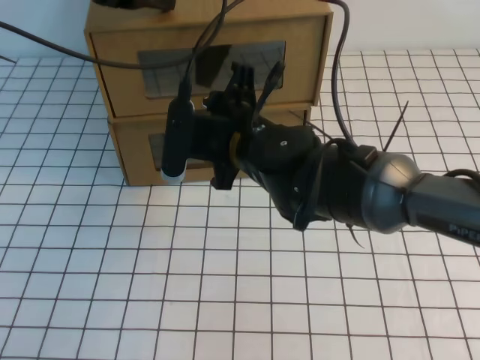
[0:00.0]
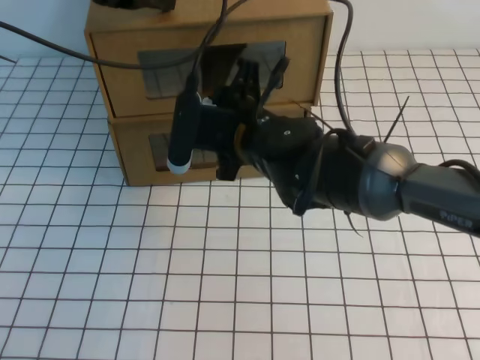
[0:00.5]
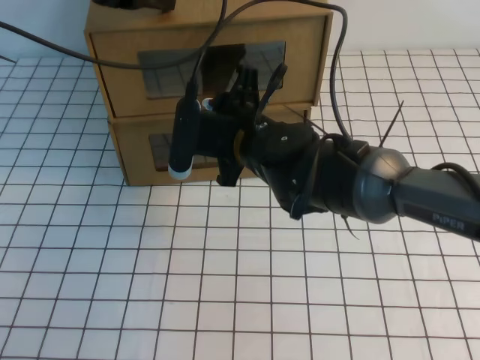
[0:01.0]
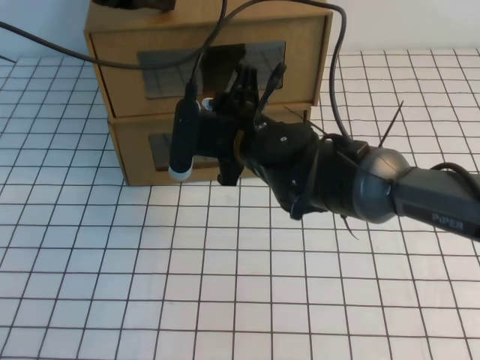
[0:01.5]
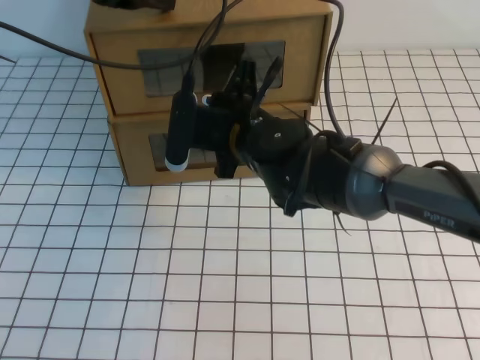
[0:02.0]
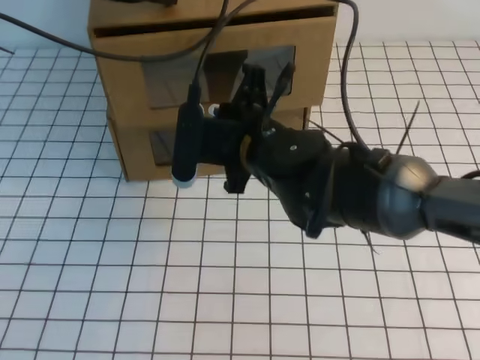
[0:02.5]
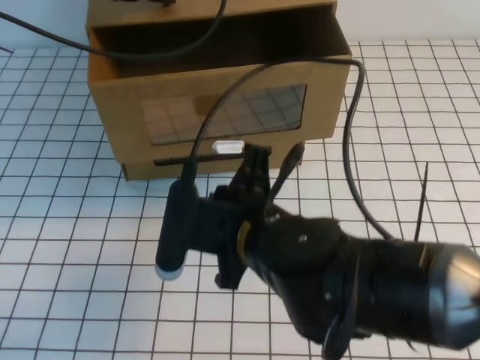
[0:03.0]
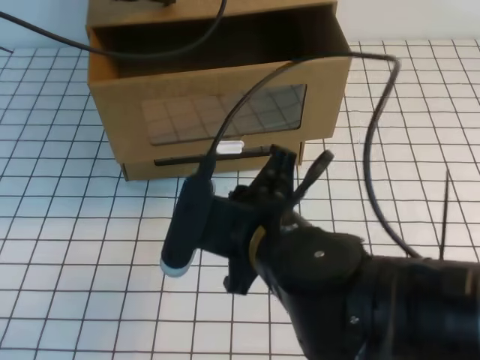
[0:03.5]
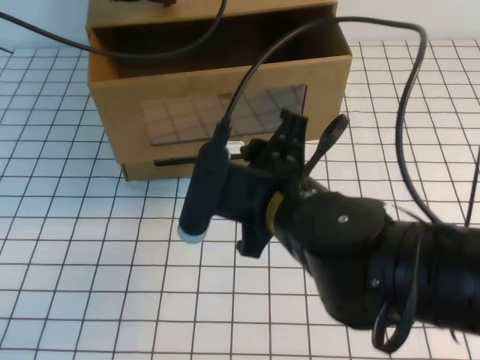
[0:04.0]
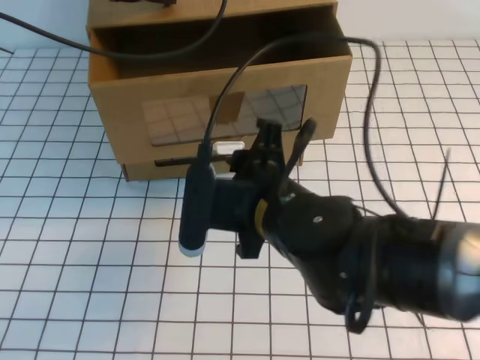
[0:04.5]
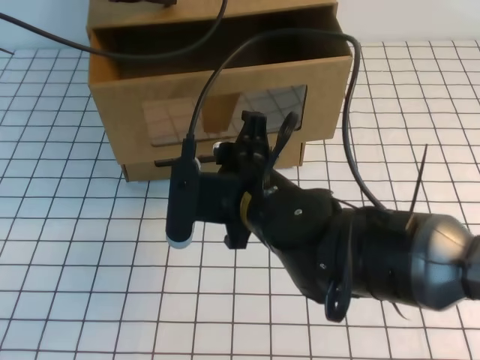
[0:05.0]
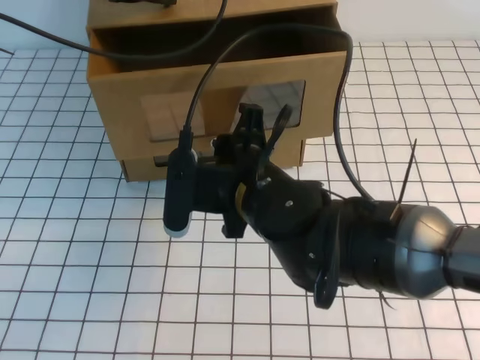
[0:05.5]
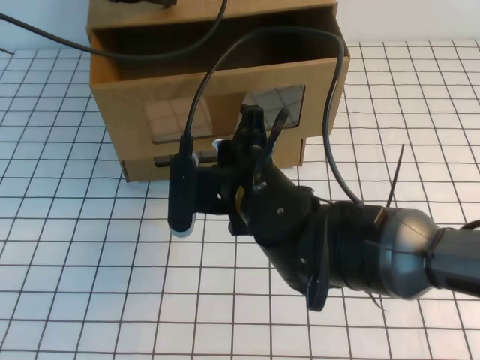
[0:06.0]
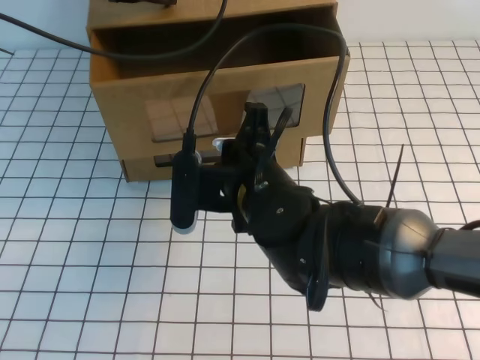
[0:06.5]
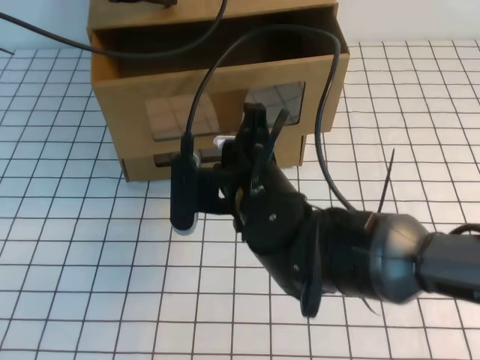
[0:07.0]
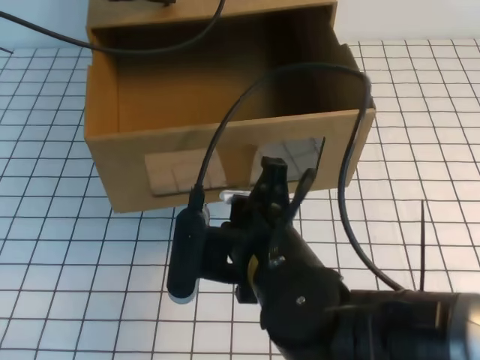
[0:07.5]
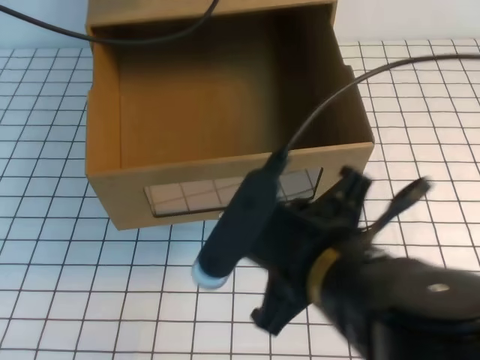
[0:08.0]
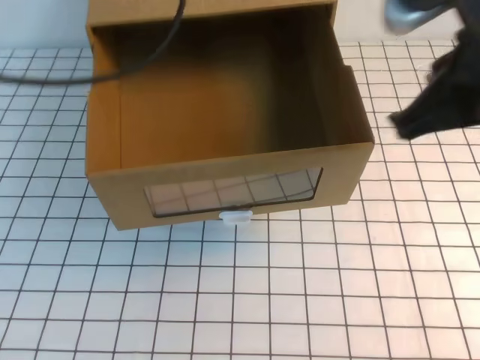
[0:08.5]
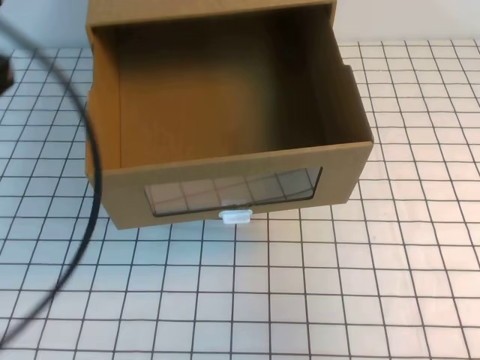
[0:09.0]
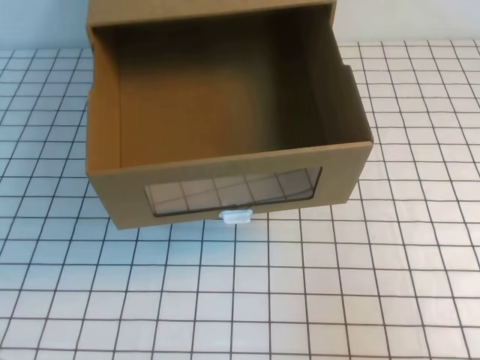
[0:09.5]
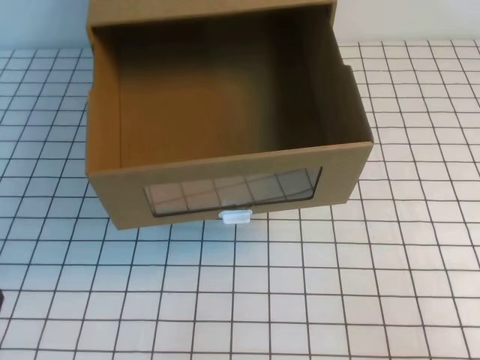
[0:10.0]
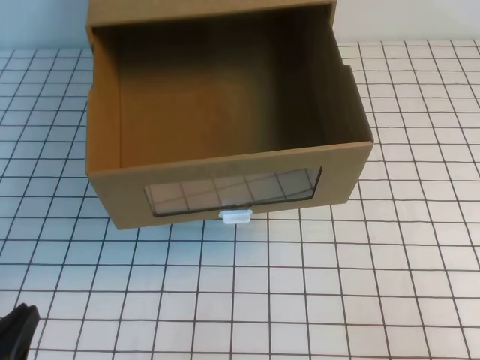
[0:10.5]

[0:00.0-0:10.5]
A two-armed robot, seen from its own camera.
Task of the whole recording: open the shoebox on the white tablecloth.
0:00.0 to 0:02.0: The right gripper closes.
0:02.0 to 0:04.0: The right gripper moves backward, roughly 15 cm, and opens up.
0:04.0 to 0:06.5: The right gripper shifts some 5 cm forward, and closes its fingers.
0:06.5 to 0:08.5: The right gripper heads to the right and upward, covering some 20 cm. Meanwhile the left gripper moves backward and upward, about 15 cm.
0:08.5 to 0:10.5: The left gripper moves downward and backward, approximately 40 cm, while the right gripper goes some 25 cm backward, downward and to the right.

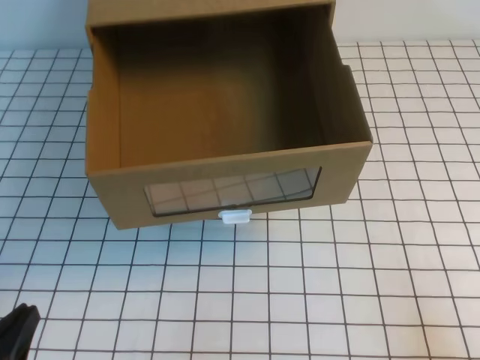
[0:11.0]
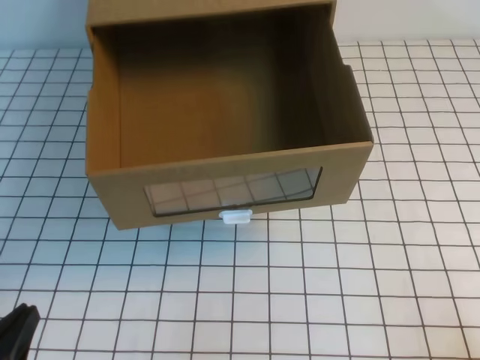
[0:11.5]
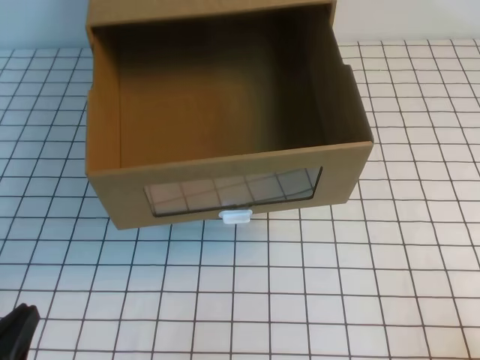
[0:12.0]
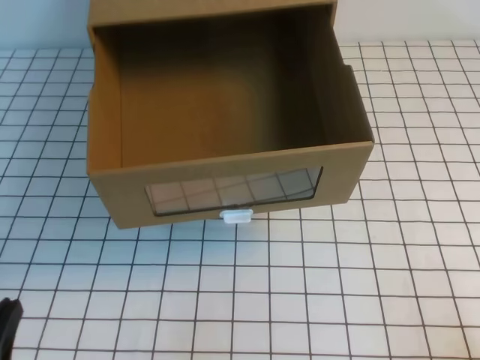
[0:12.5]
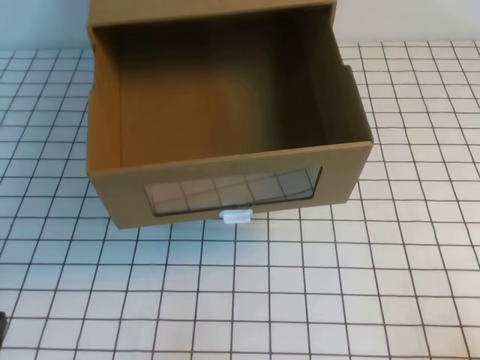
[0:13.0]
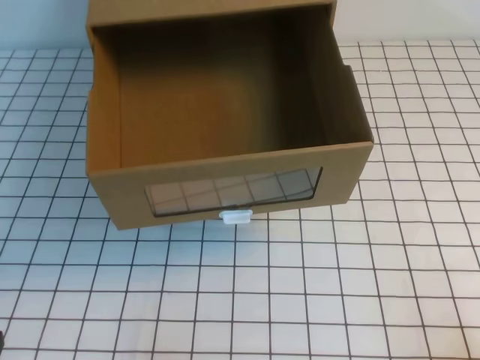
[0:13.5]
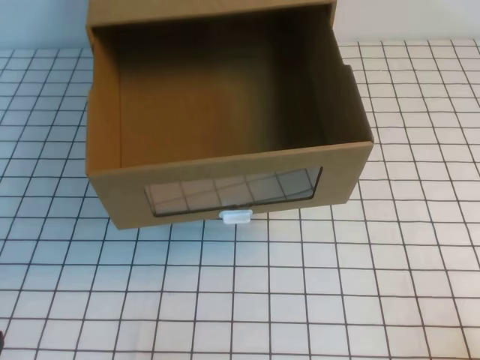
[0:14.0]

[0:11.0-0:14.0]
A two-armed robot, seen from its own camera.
Task of the whole recording: open the shoebox on the white tablecloth.
Step, 0:11.0 to 0:14.0: Open the shoe box.
0:11.0 to 0:12.5: The grippers move only a little.
